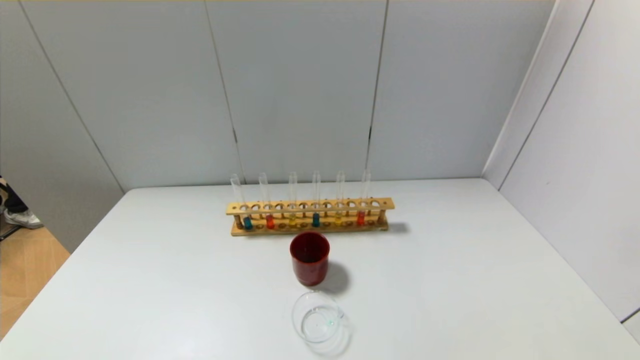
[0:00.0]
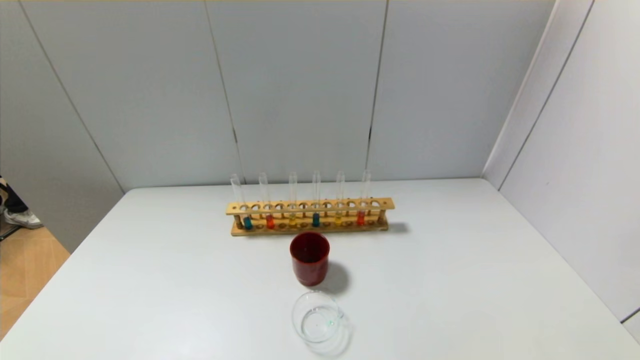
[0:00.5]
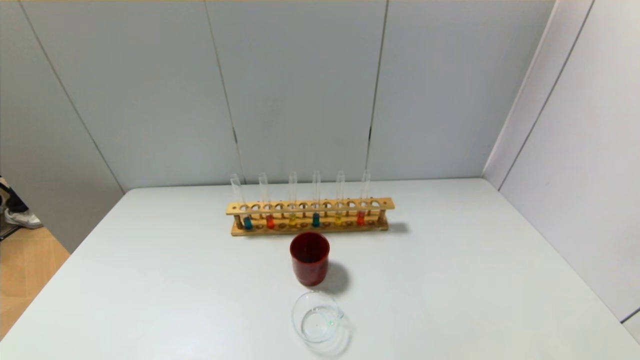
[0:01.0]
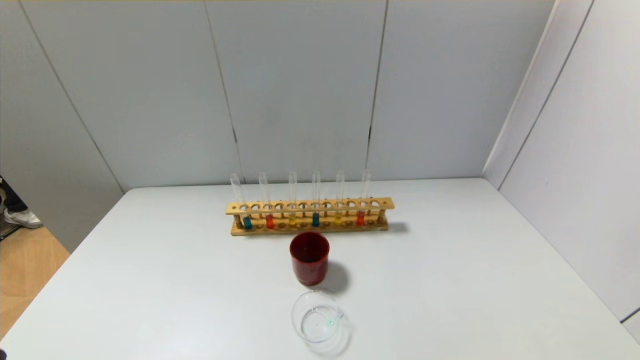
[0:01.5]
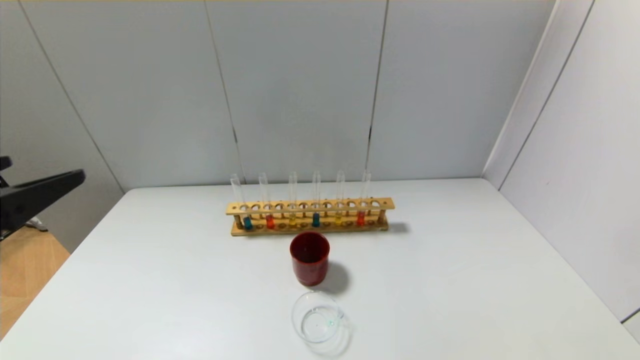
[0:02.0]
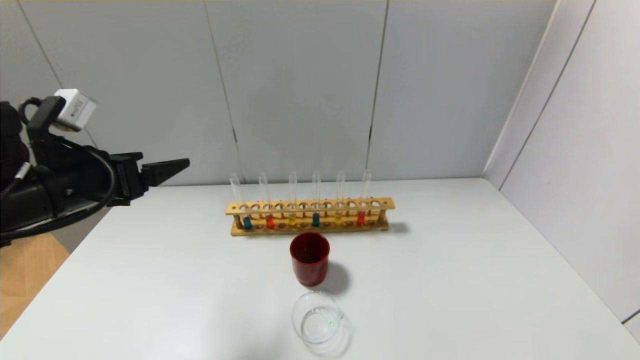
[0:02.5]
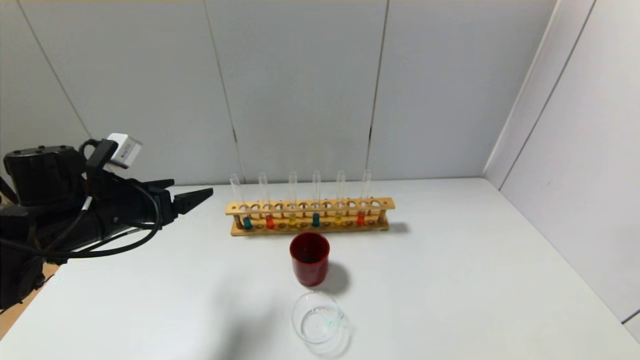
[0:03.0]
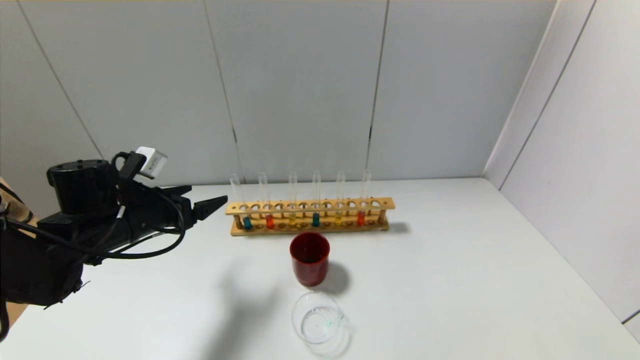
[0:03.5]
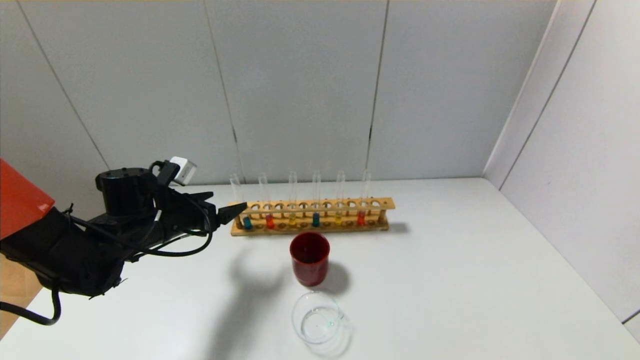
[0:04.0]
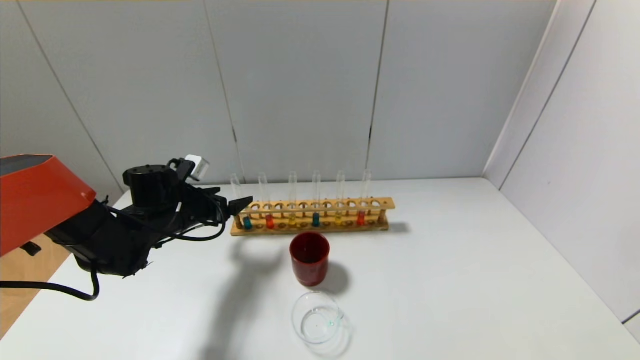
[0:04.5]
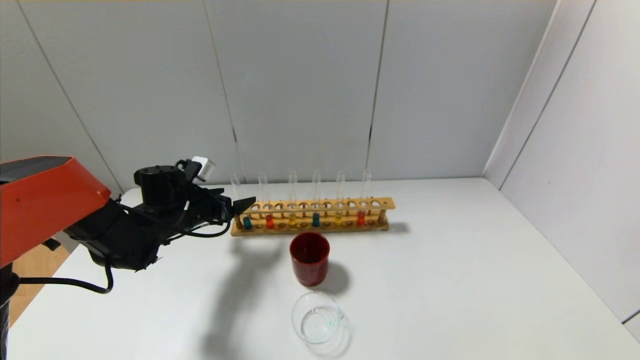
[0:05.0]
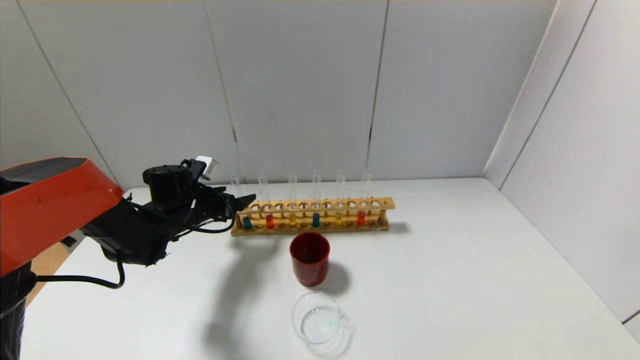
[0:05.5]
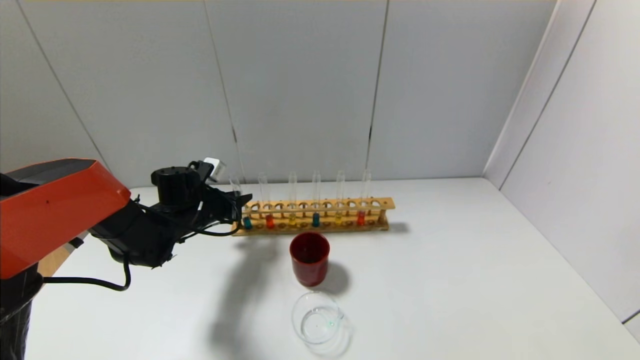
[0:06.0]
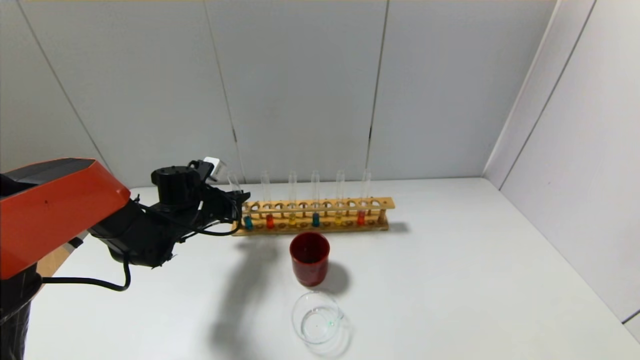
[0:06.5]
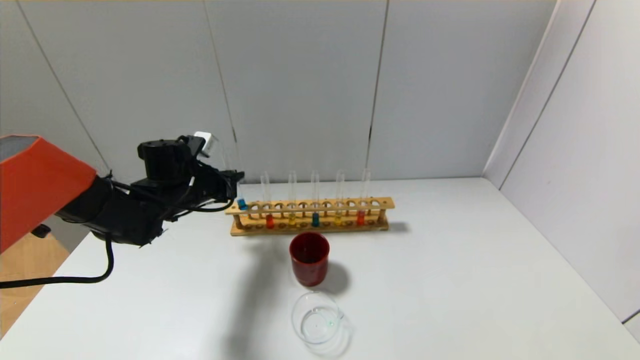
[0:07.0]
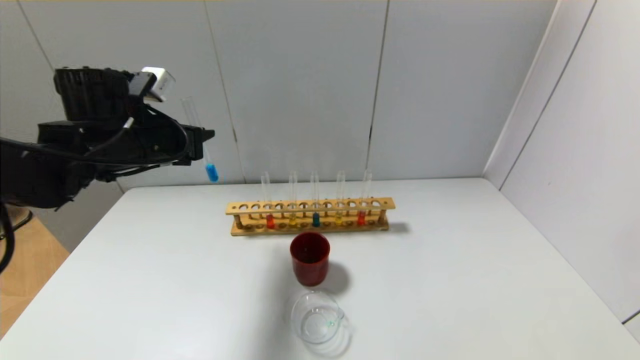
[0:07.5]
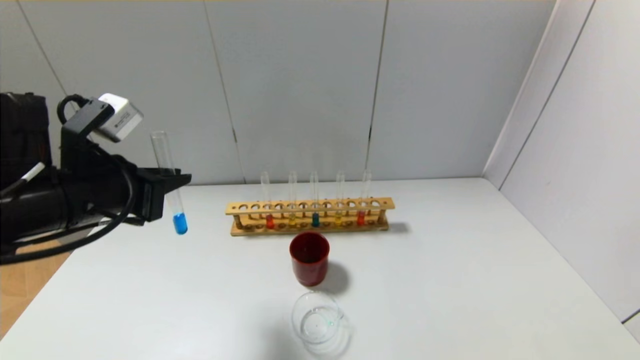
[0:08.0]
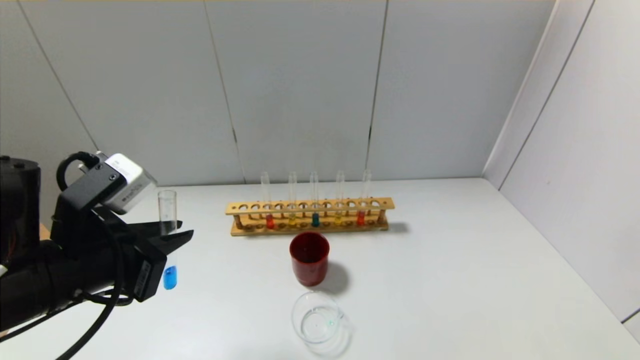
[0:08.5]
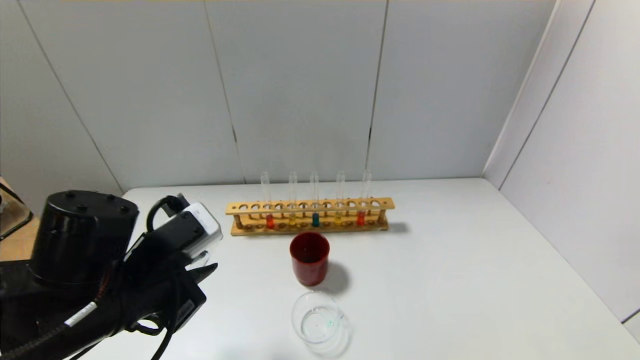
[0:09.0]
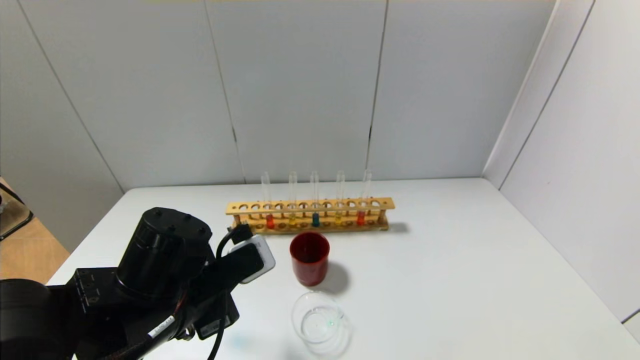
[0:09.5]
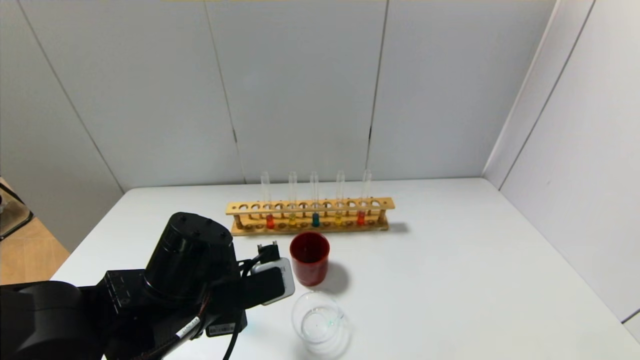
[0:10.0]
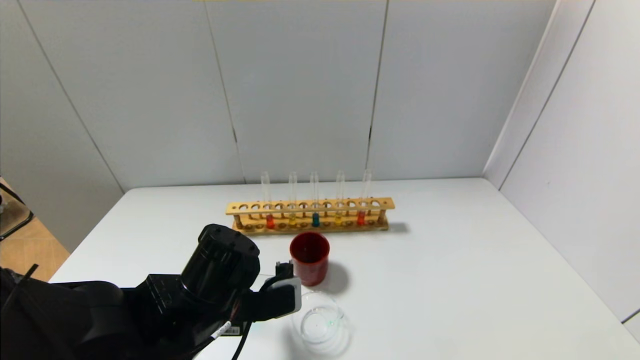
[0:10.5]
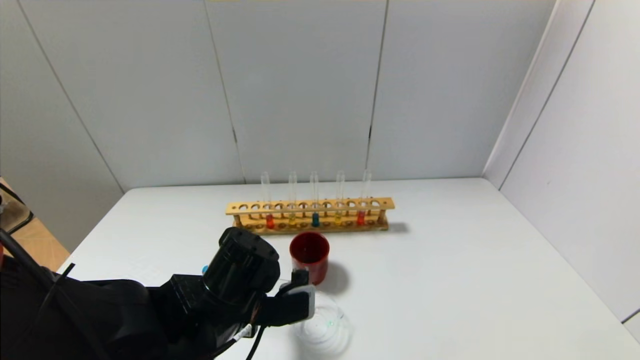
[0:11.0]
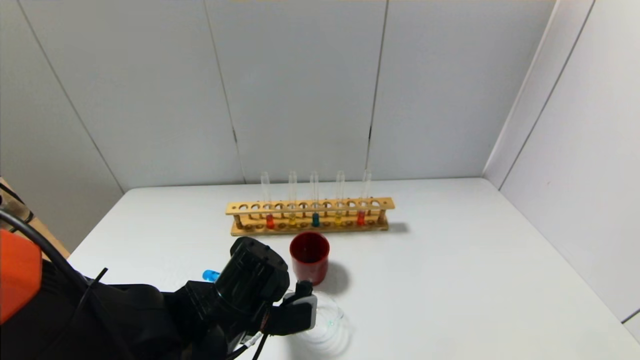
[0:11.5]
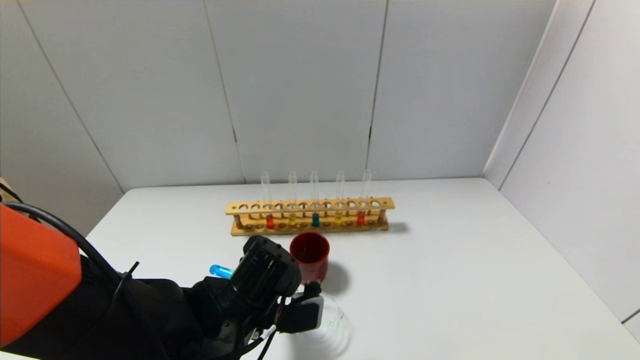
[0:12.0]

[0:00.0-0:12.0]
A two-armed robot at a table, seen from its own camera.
Step, 0:00.0 to 0:06.0: Grasp the blue reagent with the left gripper.
0:00.0 to 0:02.0: The left gripper goes about 25 cm upward and forward.
0:02.0 to 0:04.0: The left gripper shifts some 30 cm forward and downward.
0:04.0 to 0:06.0: The left gripper travels forward by about 5 cm, and closes up.
0:06.0 to 0:08.0: The left gripper travels backward and upward by roughly 25 cm.
0:08.0 to 0:10.0: The left gripper heads to the right and downward, covering some 15 cm.
0:10.0 to 0:12.0: The left gripper shifts by some 5 cm.

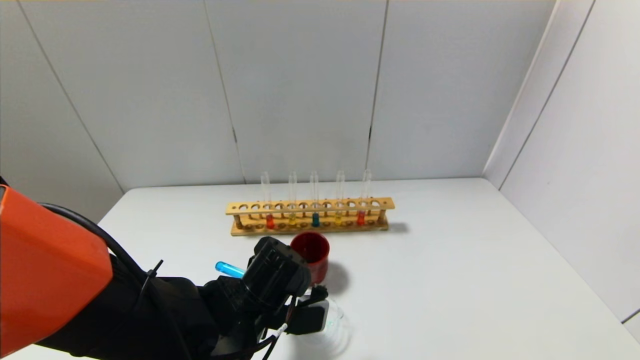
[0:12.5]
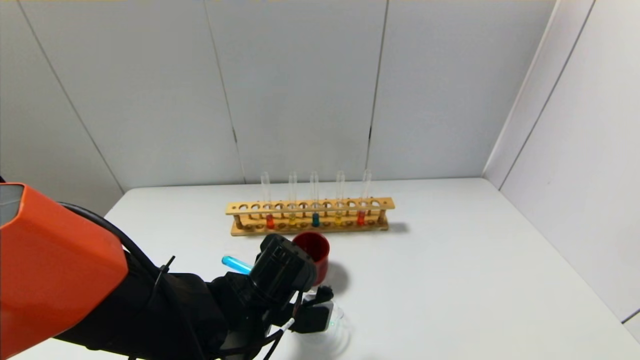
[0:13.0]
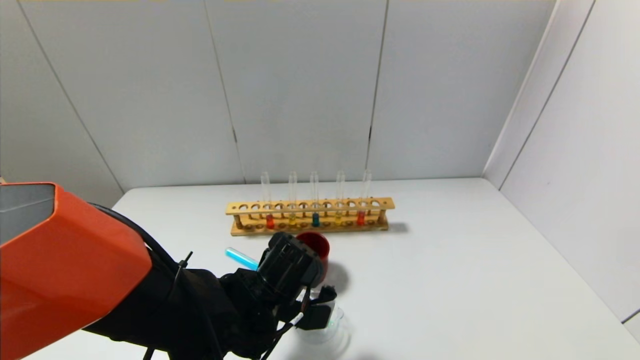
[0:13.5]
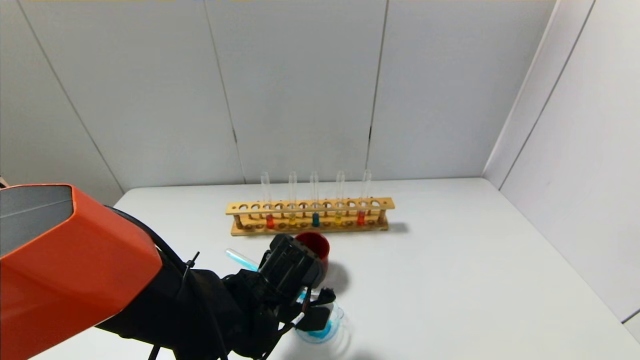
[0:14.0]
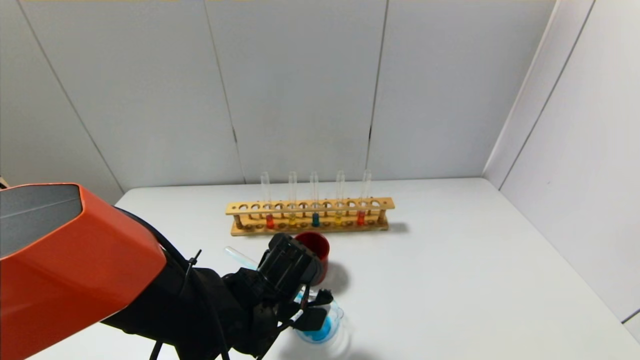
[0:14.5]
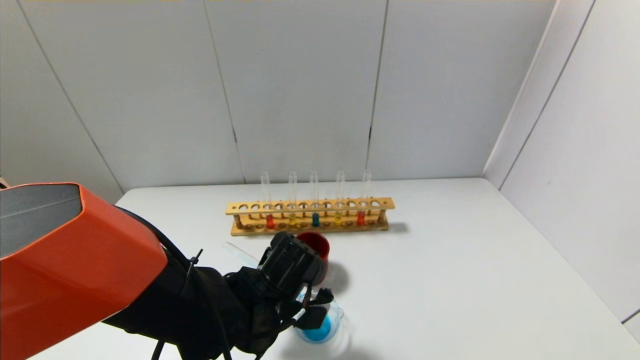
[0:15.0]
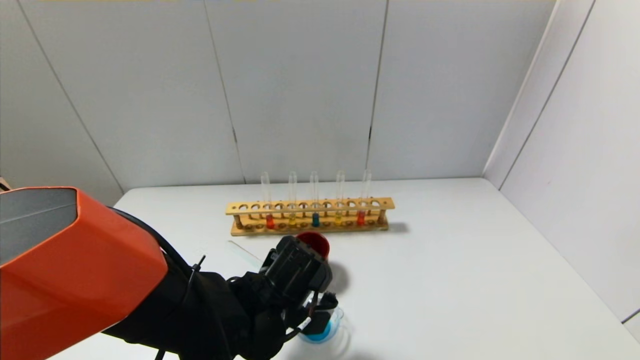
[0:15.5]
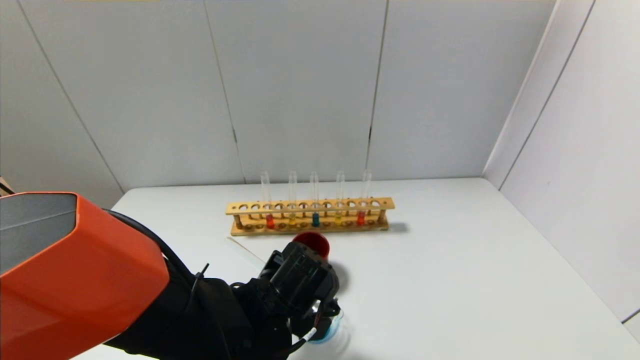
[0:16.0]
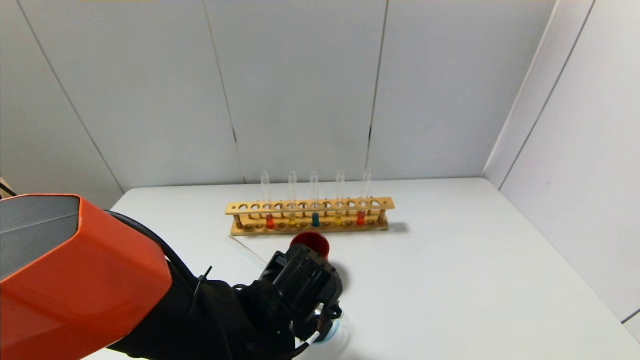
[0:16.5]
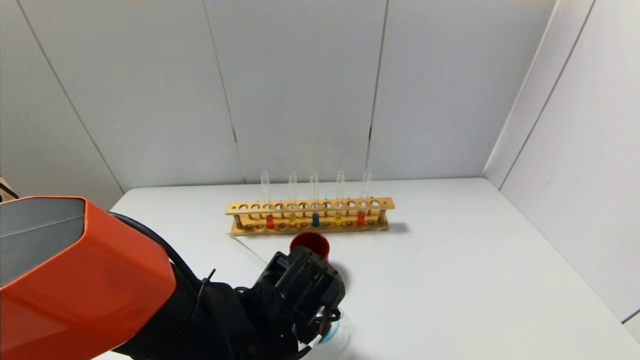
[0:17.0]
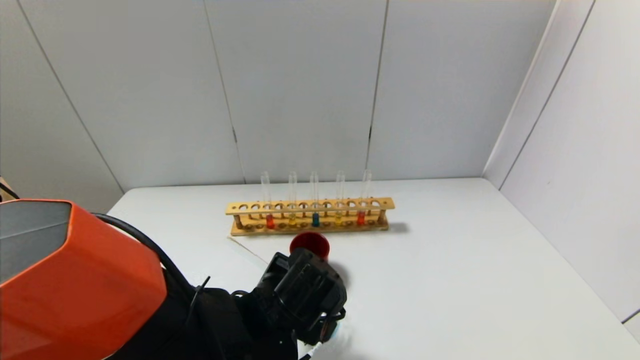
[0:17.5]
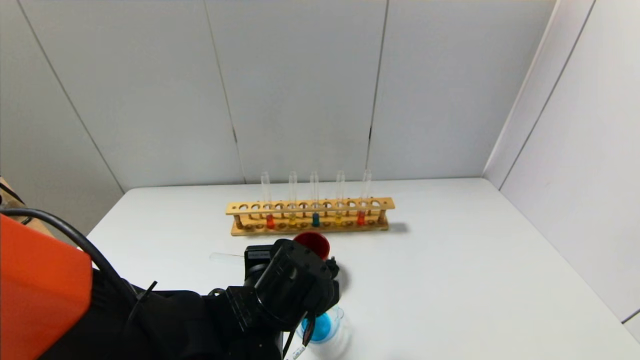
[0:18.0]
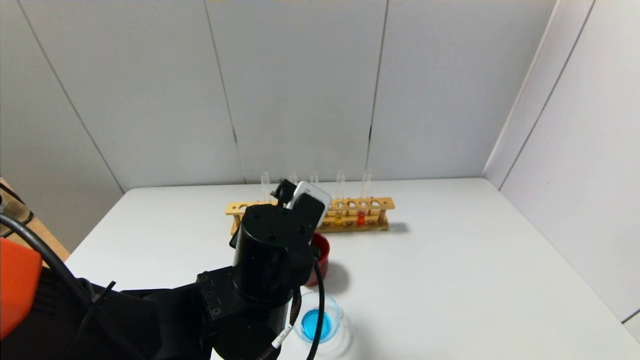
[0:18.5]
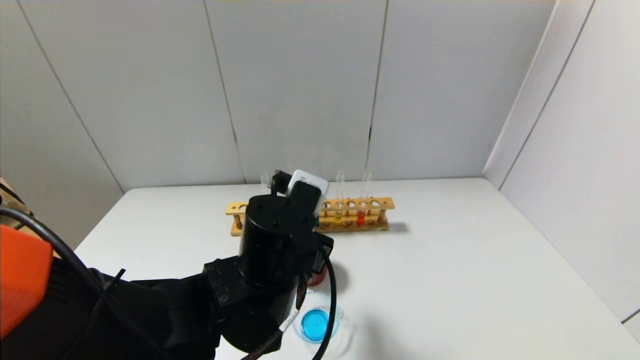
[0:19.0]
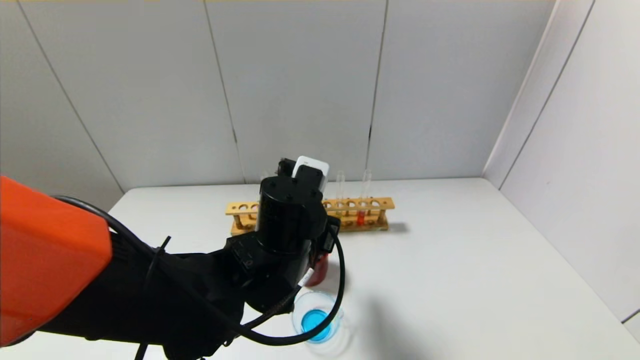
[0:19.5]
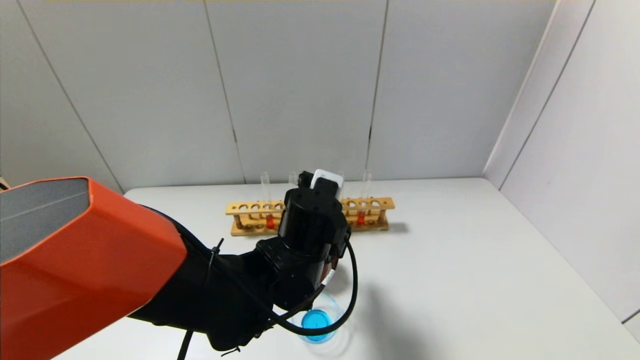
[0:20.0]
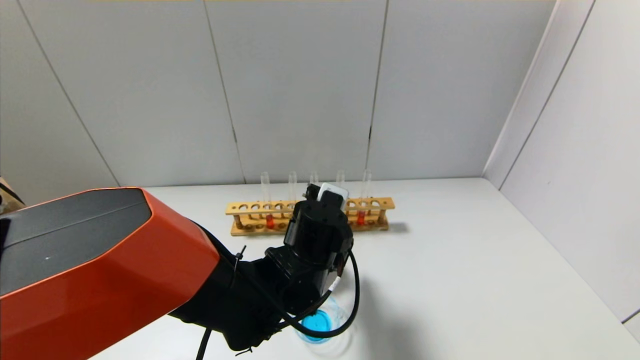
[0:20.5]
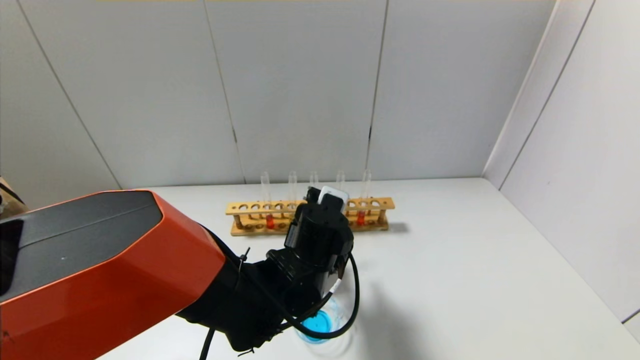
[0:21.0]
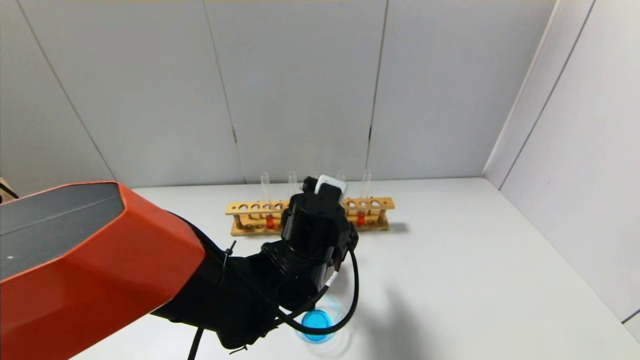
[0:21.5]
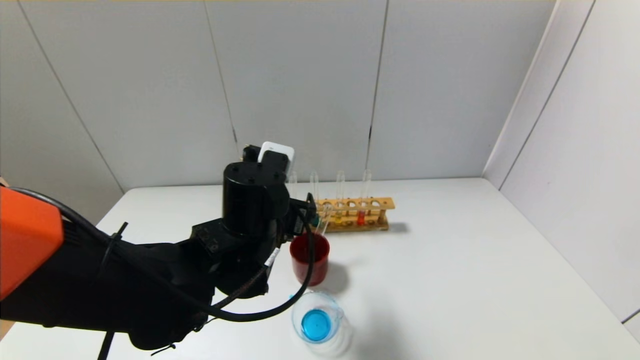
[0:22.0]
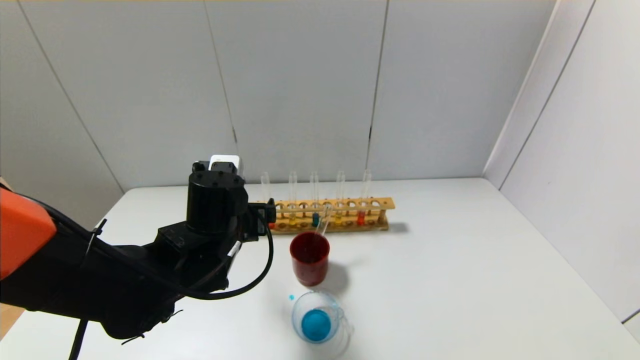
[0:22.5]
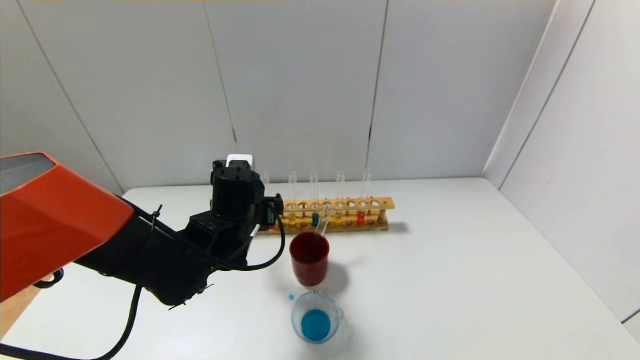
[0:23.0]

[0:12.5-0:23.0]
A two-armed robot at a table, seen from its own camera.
Step, 0:12.5 to 0:17.5: Pour the blue reagent into the graduated cylinder with the left gripper.
Step, 0:18.0 to 0:21.0: Place the test tube into the brown cup with the left gripper.
0:12.5 to 0:14.5: The grippers move only a little.
0:14.5 to 0:16.5: The grippers move only a little.
0:16.5 to 0:19.0: The left gripper travels upward by some 10 cm.
0:19.0 to 0:21.0: The left gripper shifts some 10 cm downward and forward, and opens its fingers.
0:21.0 to 0:23.0: The left gripper travels to the left by roughly 10 cm, and opens.
